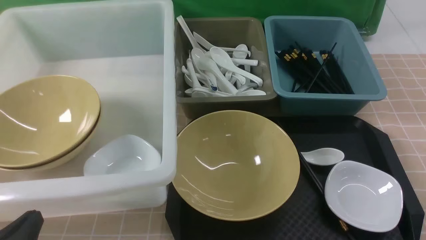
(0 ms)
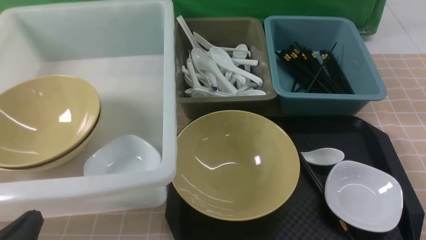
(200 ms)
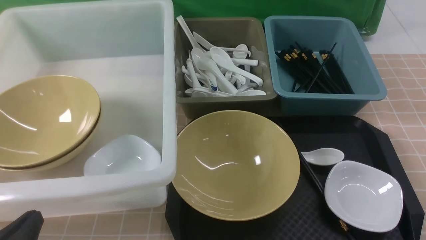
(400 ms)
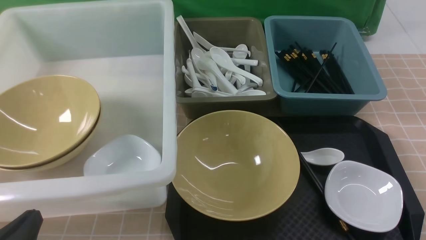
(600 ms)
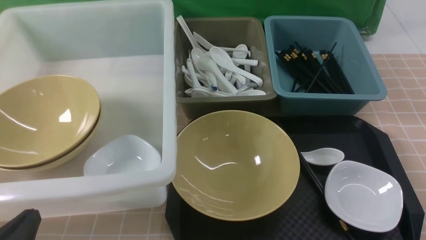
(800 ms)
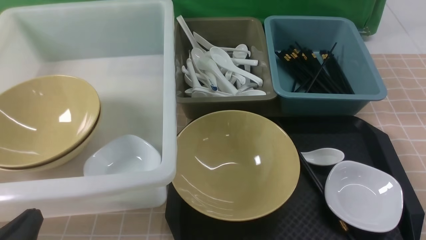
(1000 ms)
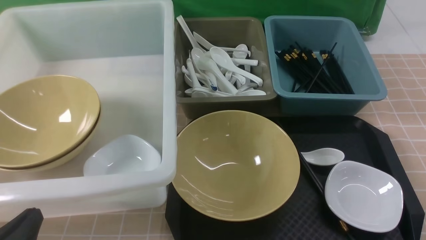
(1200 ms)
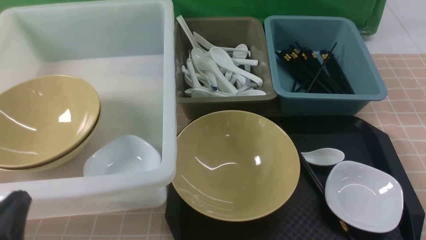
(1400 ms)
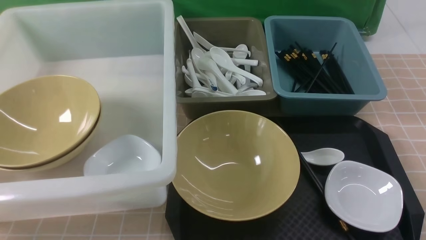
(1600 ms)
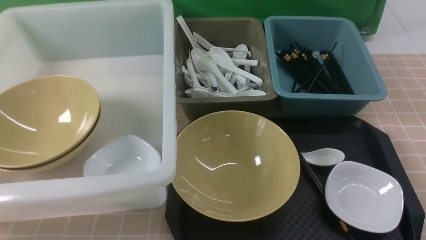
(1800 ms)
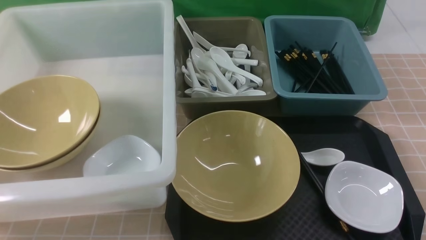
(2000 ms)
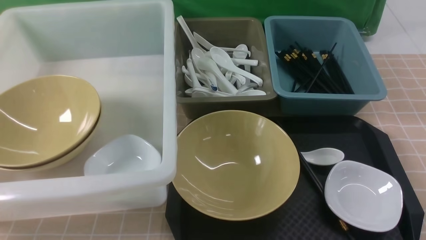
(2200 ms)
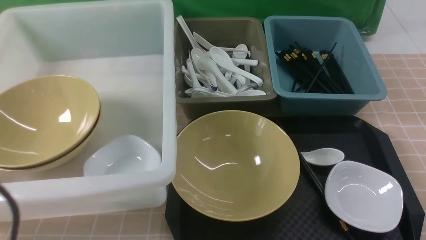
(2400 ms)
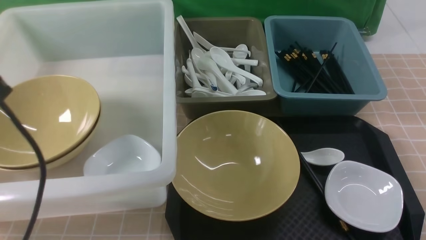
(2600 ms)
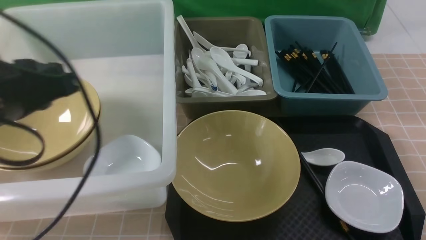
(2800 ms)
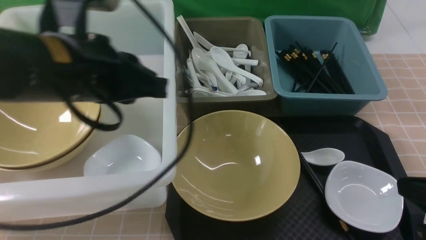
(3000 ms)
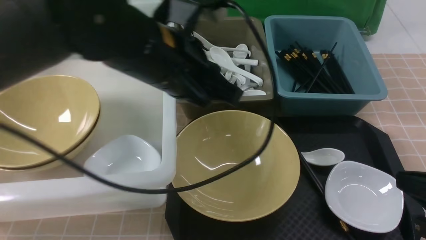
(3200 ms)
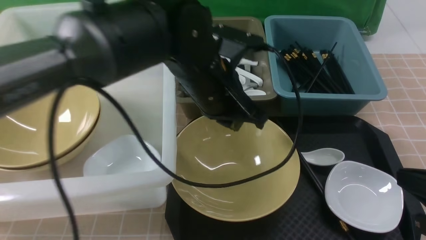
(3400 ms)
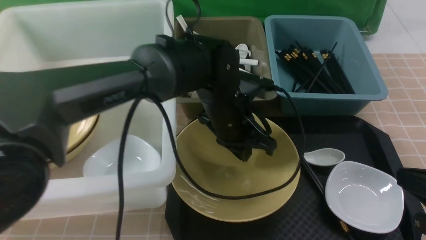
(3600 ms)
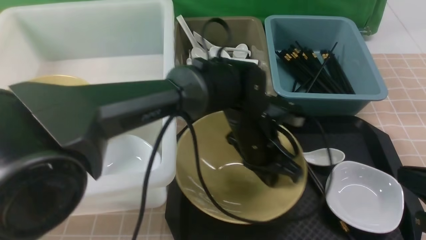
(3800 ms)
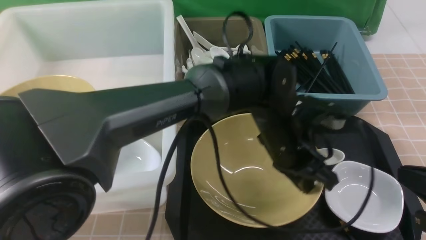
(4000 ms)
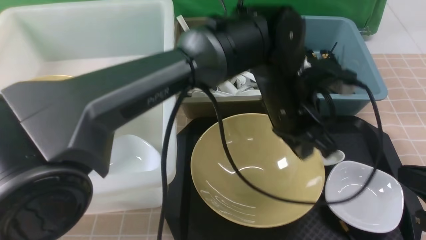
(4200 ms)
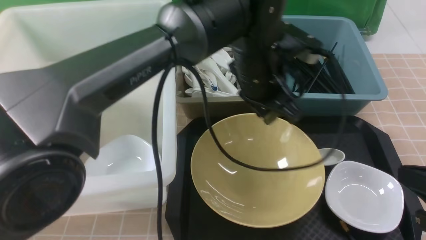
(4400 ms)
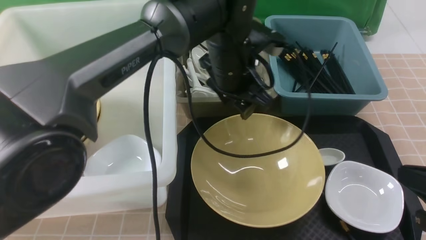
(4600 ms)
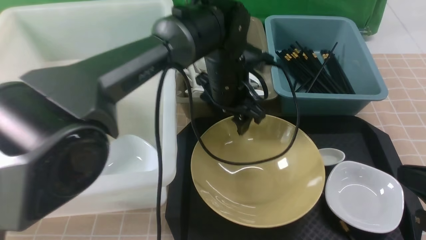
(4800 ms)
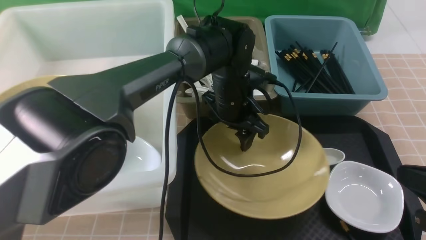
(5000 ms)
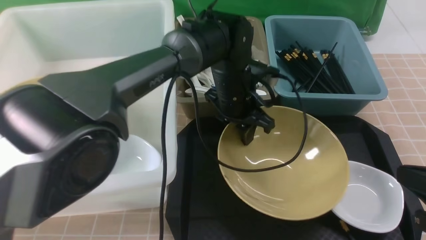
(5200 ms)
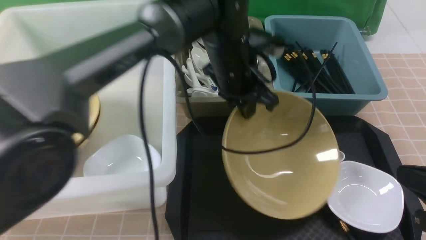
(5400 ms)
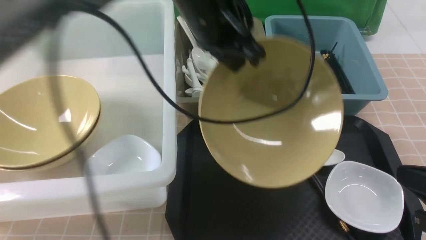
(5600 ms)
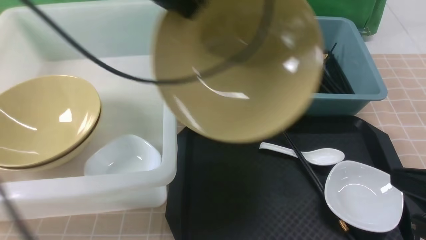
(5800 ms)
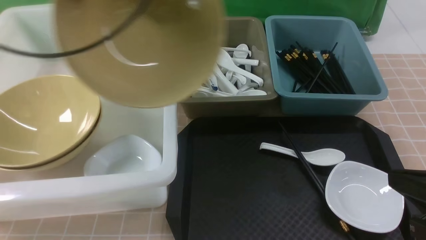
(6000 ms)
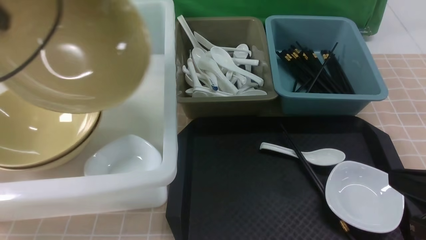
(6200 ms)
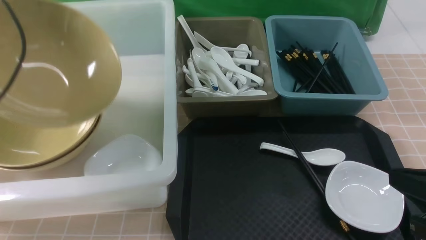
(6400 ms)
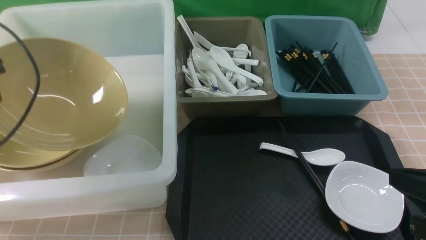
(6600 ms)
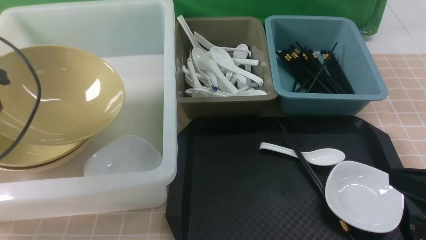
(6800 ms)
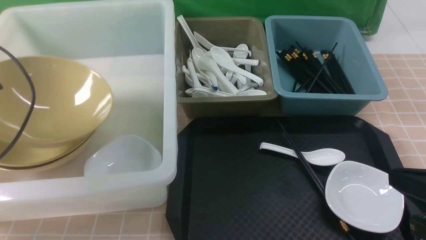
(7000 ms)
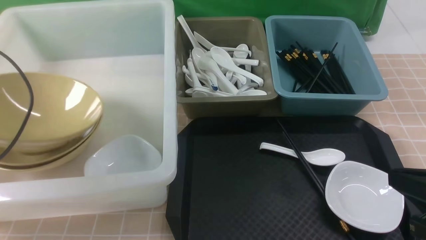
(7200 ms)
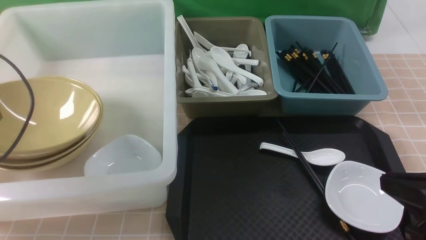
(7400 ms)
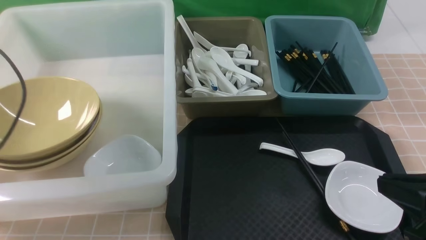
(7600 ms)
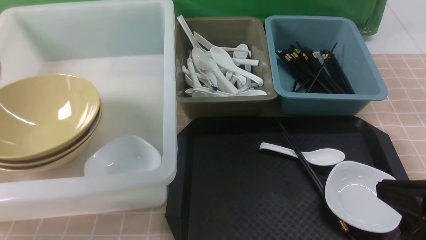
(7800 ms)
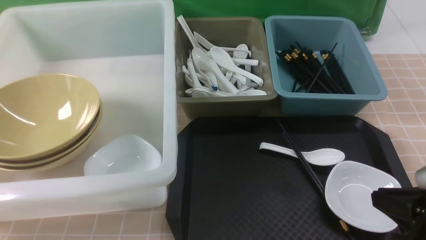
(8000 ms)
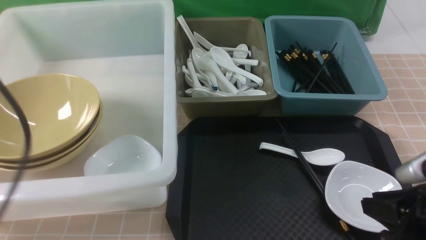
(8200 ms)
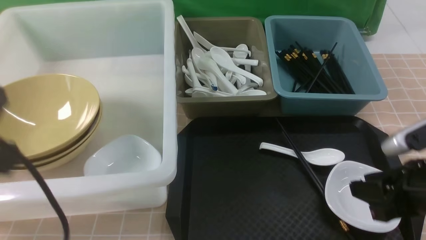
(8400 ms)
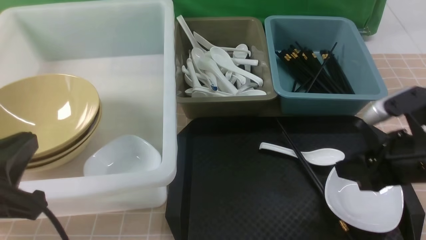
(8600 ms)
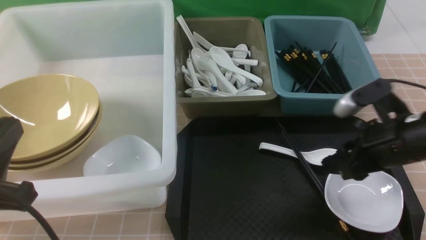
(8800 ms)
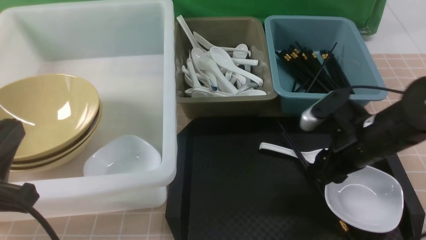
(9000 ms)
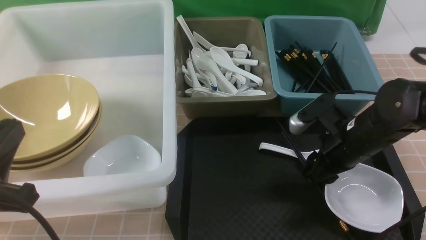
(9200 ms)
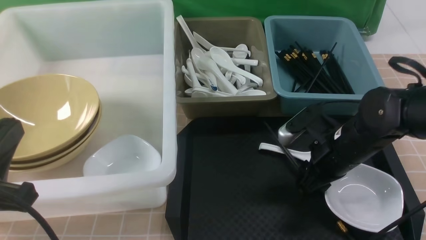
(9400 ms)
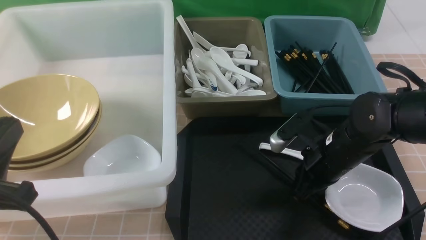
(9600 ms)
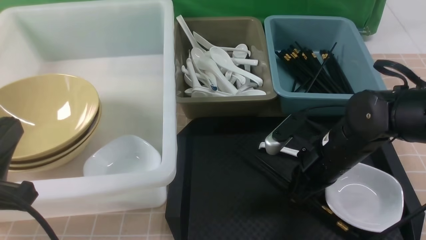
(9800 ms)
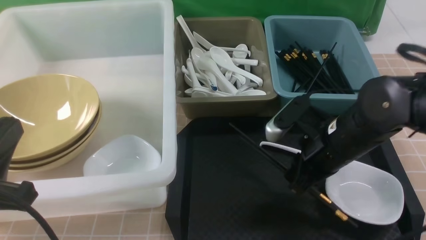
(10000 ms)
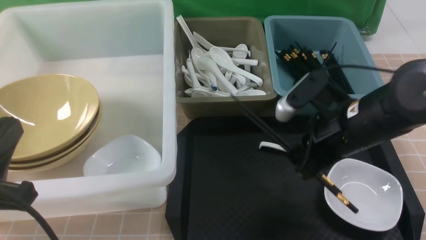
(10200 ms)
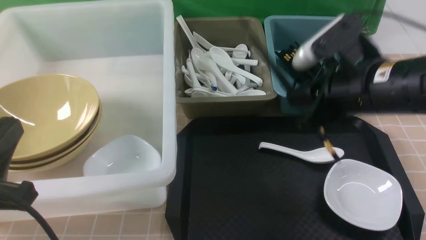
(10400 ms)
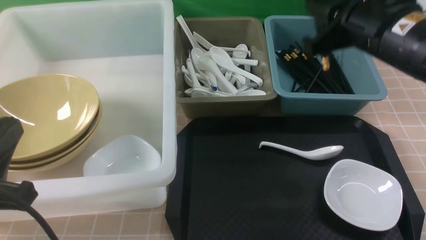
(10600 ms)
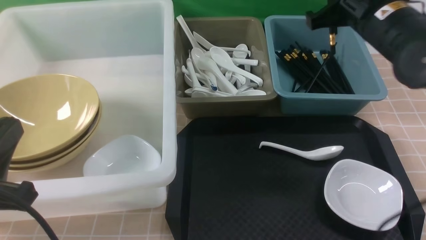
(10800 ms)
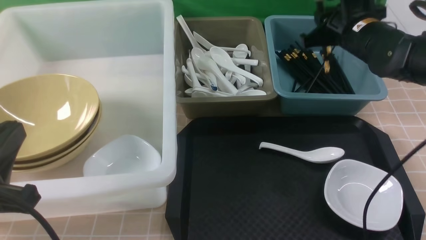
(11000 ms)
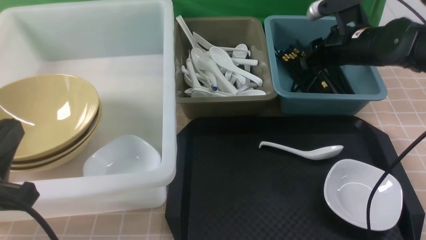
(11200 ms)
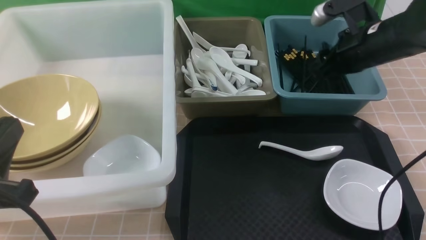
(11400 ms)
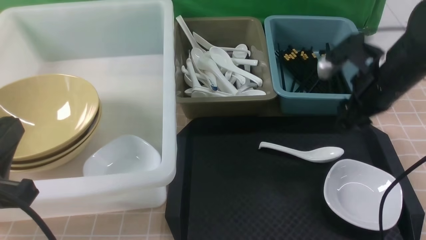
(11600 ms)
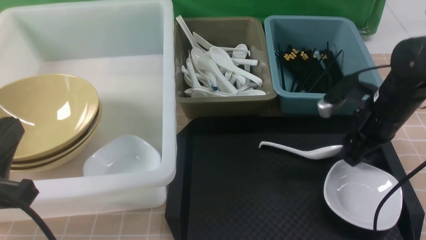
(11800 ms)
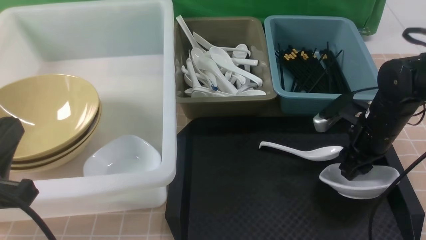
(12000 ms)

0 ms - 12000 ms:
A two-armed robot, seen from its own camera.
Task of the whole recording: on brown table put chopsticks spoon bowls plates into blue grey white boxes.
Step, 0 ms - 5200 ms: use the left arm to grab the yellow noodle bowl on the left.
Step, 5600 ms - 7400 ms: use the left arm to put the noodle bowl into the large storage box on the left.
Step, 7600 ms - 10000 ms: use the right arm to grab the chopsticks.
Step, 10200 ms - 11200 ms: use the right arm to put the chopsticks into the small storage box on the right.
1600 ms - 3000 ms: The left gripper goes about 25 cm forward, upward and to the right. The right gripper heads forward, covering approximately 5 cm, and reaches approximately 15 cm upward, then returns.
3000 ms - 4400 ms: The left gripper moves to the right and forward, some 25 cm.
4400 ms - 6000 ms: The left gripper heads to the left and upward, covering about 30 cm, and opens, then closes again.
6000 ms - 7600 ms: The left gripper travels to the left and downward by approximately 20 cm, and opens up.
7600 ms - 9000 ms: The right gripper moves forward, about 15 cm, and opens its fingers; the left gripper travels backward and to the right by approximately 20 cm, and closes up.
9000 ms - 10400 ms: The right gripper shifts some 10 cm upward and to the left, and closes up.
10400 ms - 12000 ms: The right gripper shifts some 15 cm downward, to the right and forward, and opens.

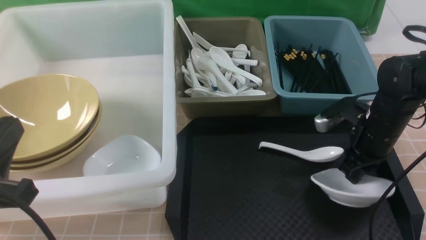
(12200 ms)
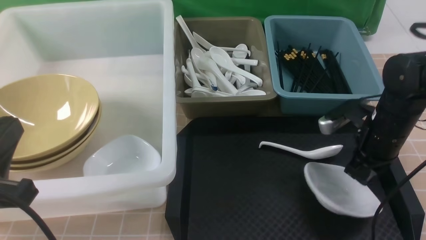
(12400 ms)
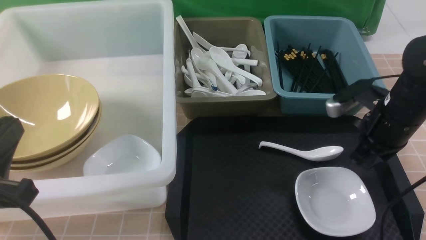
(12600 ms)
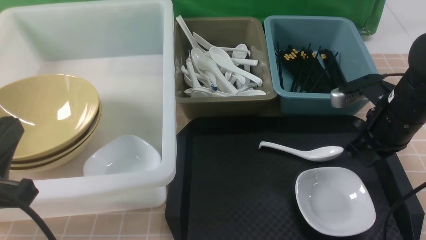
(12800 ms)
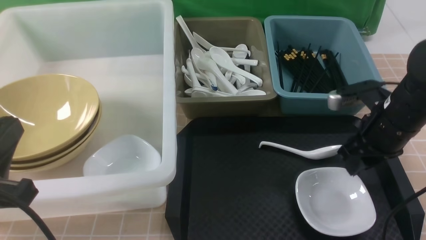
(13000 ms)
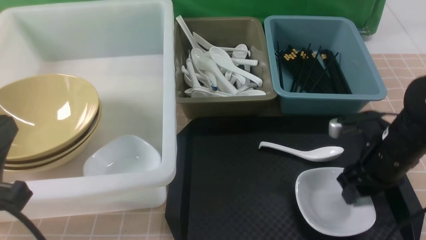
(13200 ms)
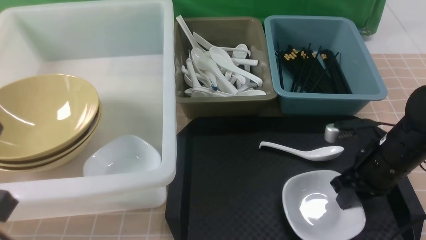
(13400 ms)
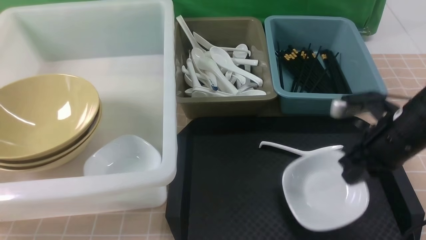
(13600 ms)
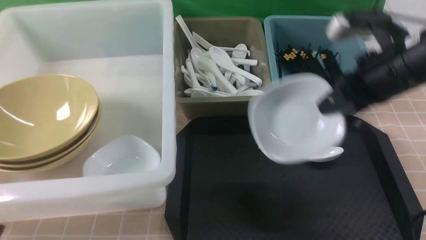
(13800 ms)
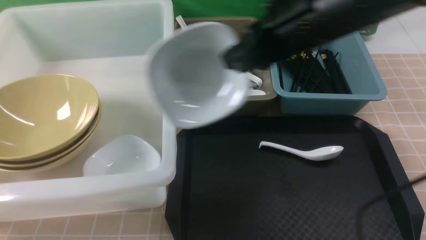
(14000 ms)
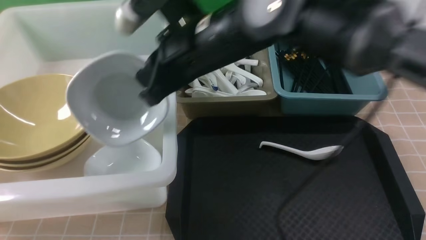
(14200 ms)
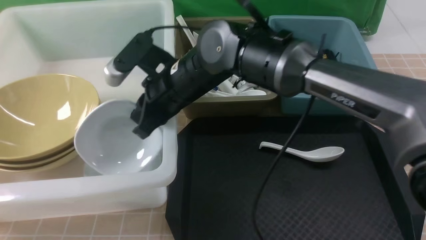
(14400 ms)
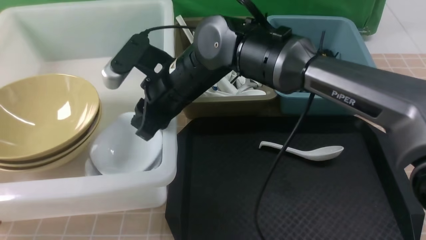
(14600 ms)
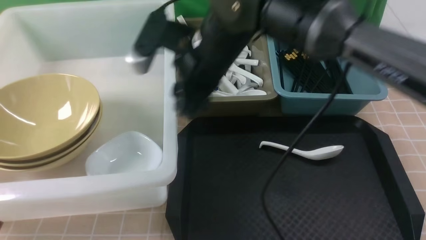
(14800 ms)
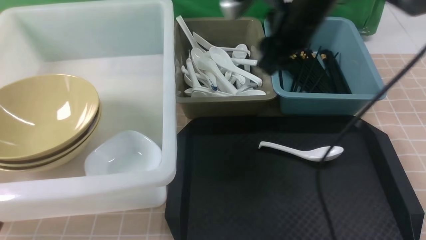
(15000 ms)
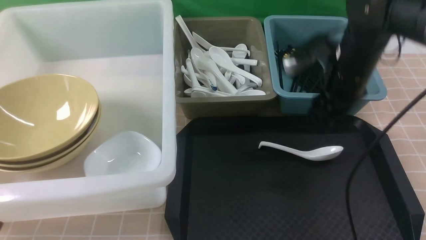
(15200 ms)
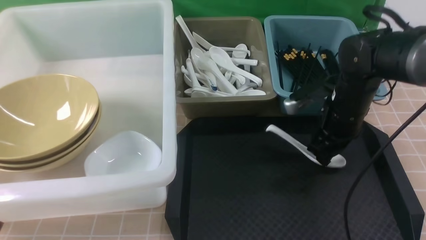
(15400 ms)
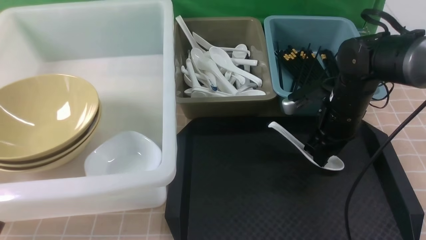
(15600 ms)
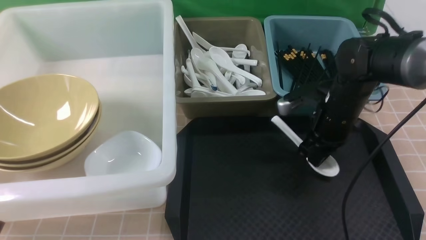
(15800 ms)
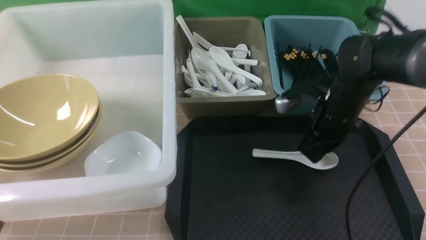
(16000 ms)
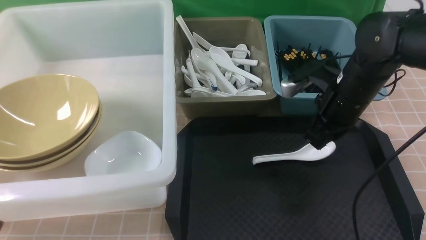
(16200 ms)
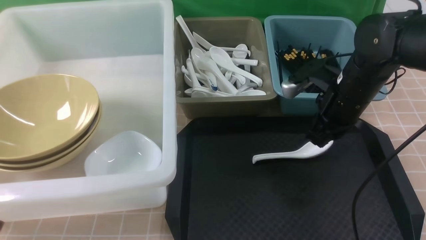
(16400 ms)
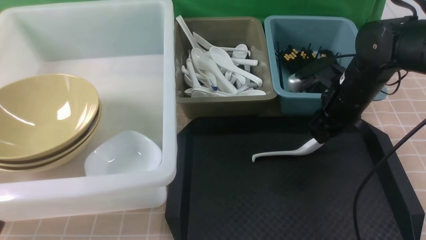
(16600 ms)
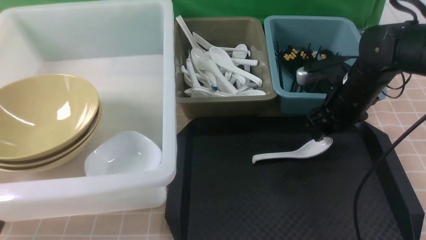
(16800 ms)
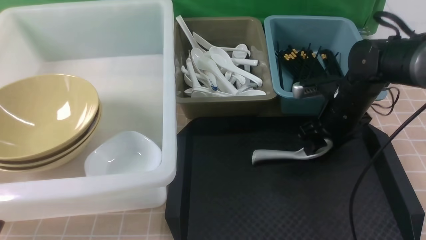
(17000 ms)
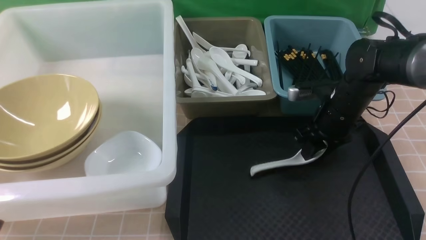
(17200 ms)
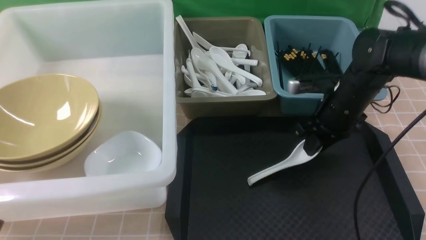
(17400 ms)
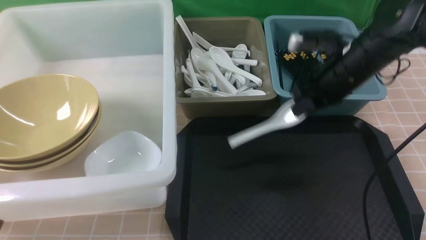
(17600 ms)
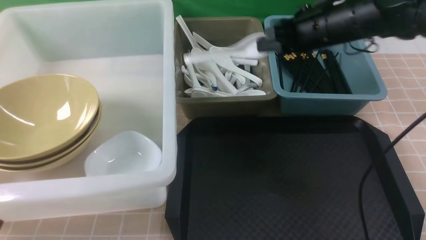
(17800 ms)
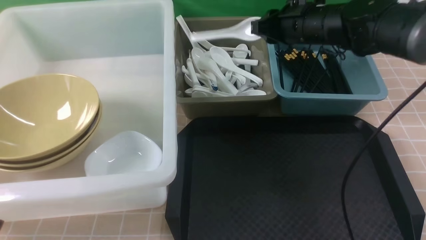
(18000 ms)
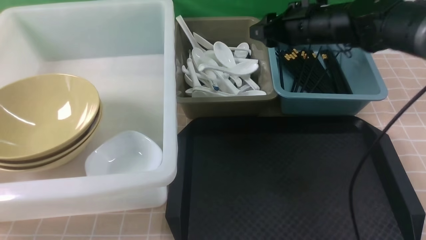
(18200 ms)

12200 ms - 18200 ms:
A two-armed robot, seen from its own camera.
Task of the whole recording: on brown table put chopsticks spoon bowls plates into blue grey white boxes.
Step, 12200 ms - 13600 ms: use the right arm to grab the plate.
Step, 13800 ms - 14600 ms: use the right arm to put the plate into the large storage box on the left.
Step, 14800 ms - 17400 ms: use the right arm to grab the soup spoon in the middle.
Step, 17600 ms - 18200 ms: use the right arm to put the soup spoon into the small storage box in the middle.
12200 ms - 13800 ms: The right gripper swings up and down, about 10 cm each way, with 2 reversals, and closes.
13800 ms - 15200 ms: The right gripper travels forward by approximately 10 cm, reaches roughly 25 cm to the left, then returns, and opens up.
15200 ms - 16600 ms: The right gripper moves downward, some 5 cm, and closes up.
16600 ms - 18200 ms: The right gripper shifts roughly 10 cm upward and forward.
